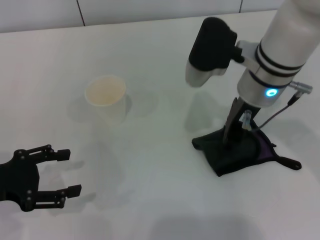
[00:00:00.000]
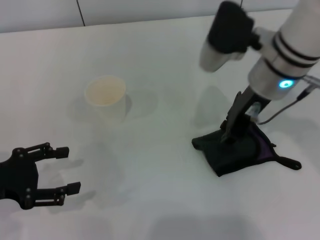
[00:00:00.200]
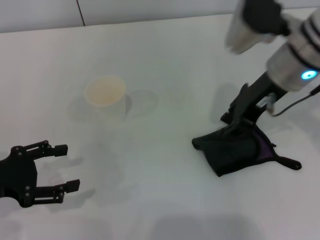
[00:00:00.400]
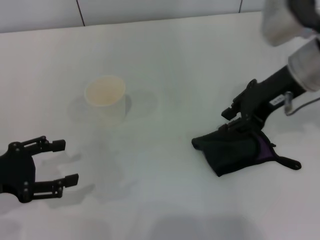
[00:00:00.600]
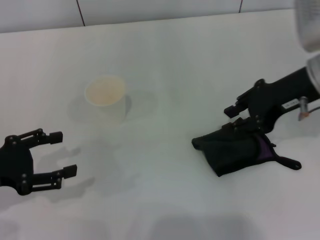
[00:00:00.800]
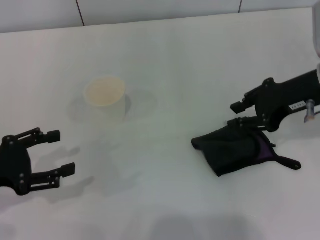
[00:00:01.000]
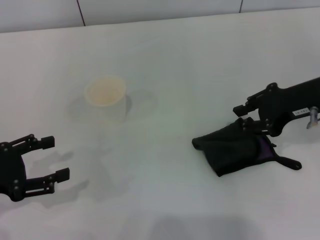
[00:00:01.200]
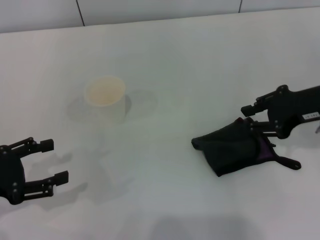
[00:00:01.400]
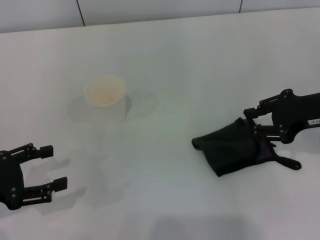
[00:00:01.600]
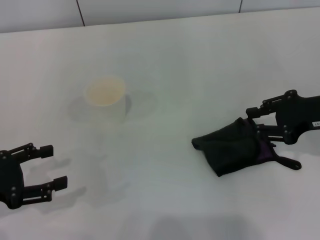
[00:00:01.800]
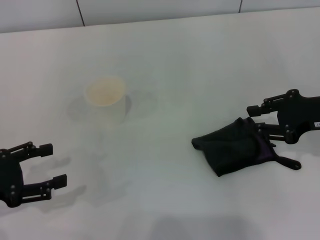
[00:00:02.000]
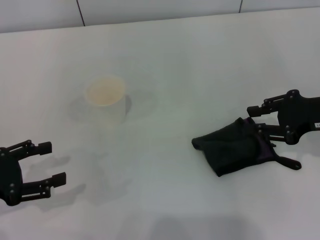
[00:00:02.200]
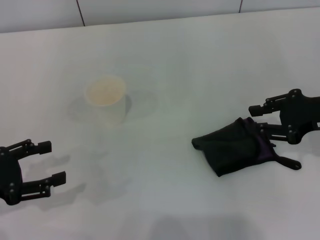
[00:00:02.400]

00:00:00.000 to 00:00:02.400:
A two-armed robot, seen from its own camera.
00:00:00.000 to 00:00:01.200: The right gripper heads to the right, covering about 15 cm.
00:00:01.200 to 00:00:02.400: The right gripper moves approximately 5 cm.
